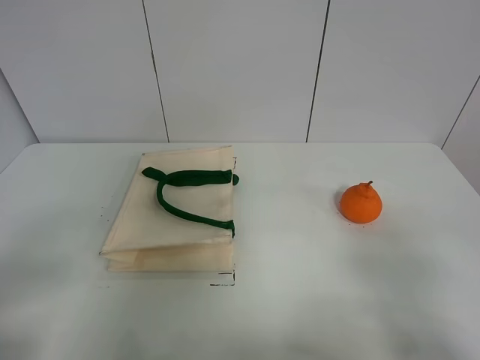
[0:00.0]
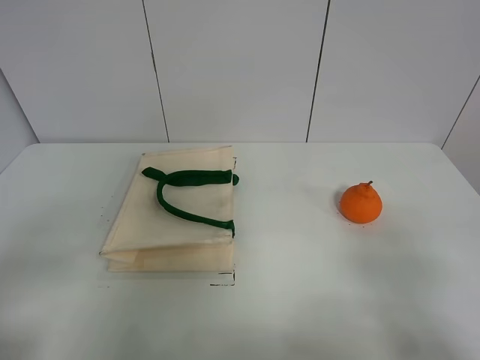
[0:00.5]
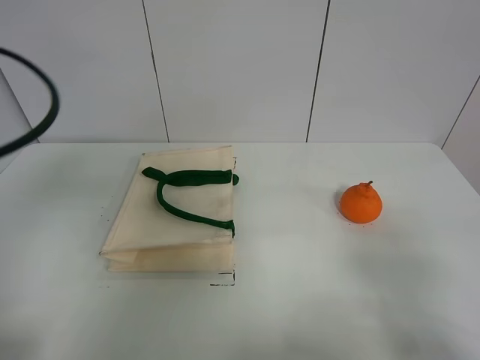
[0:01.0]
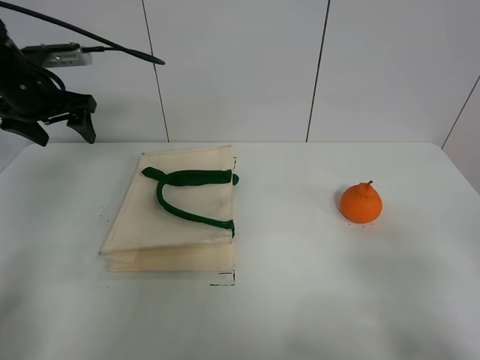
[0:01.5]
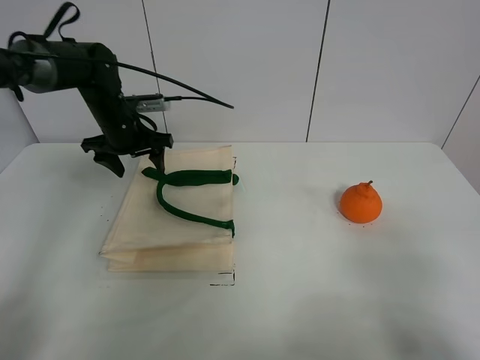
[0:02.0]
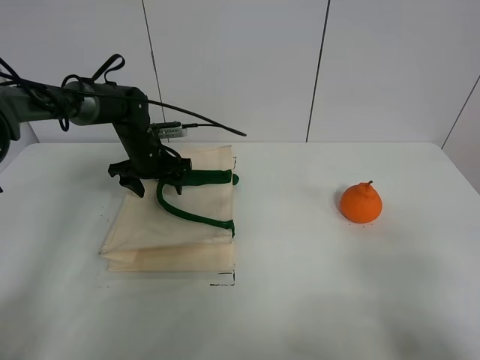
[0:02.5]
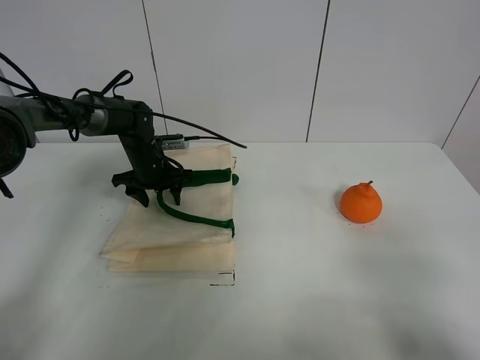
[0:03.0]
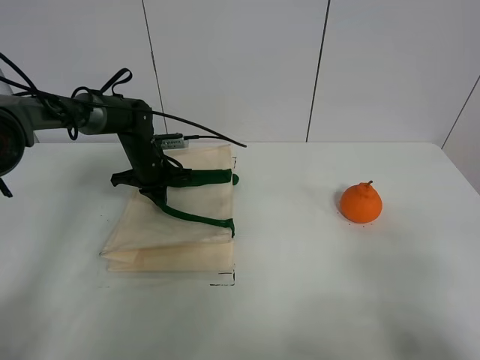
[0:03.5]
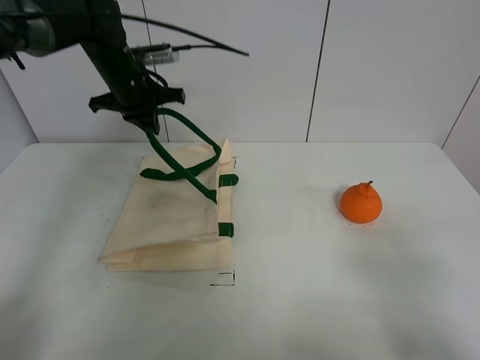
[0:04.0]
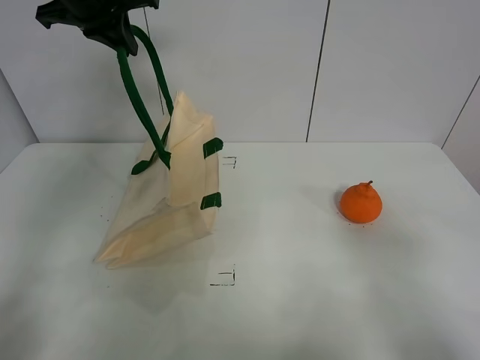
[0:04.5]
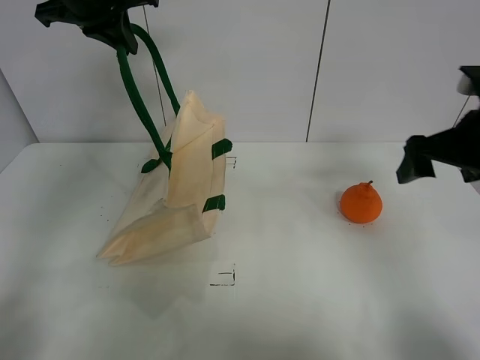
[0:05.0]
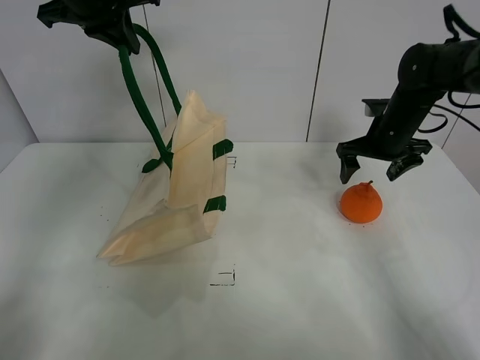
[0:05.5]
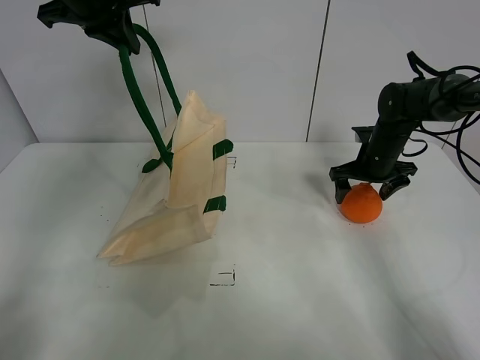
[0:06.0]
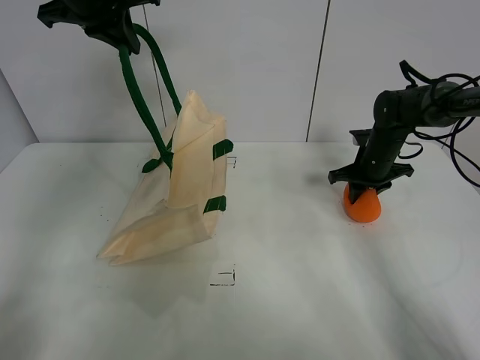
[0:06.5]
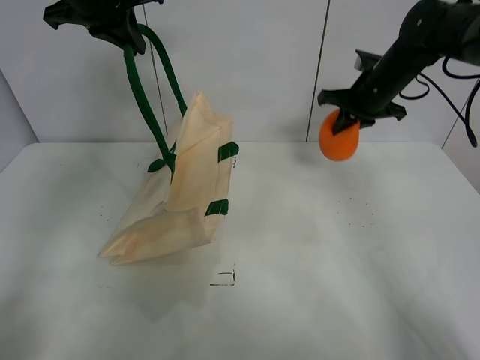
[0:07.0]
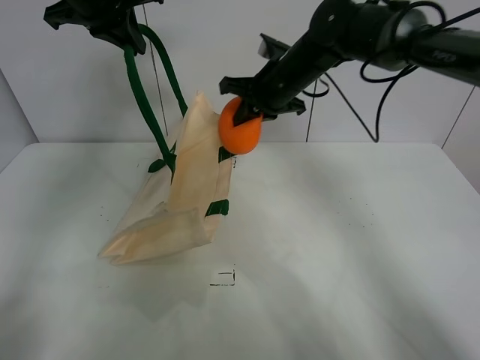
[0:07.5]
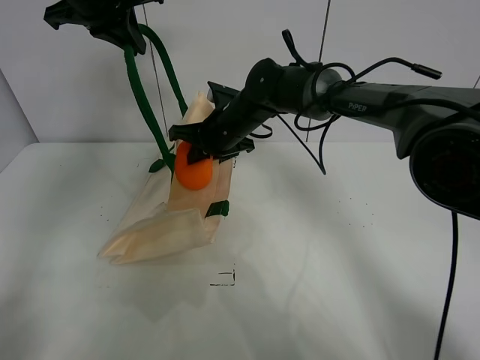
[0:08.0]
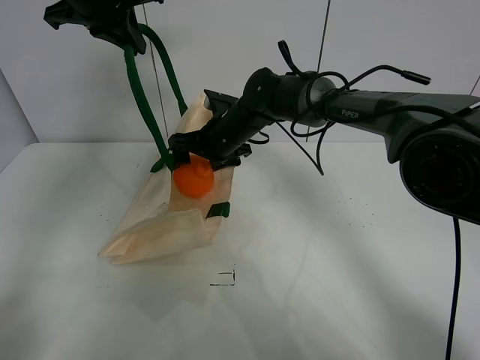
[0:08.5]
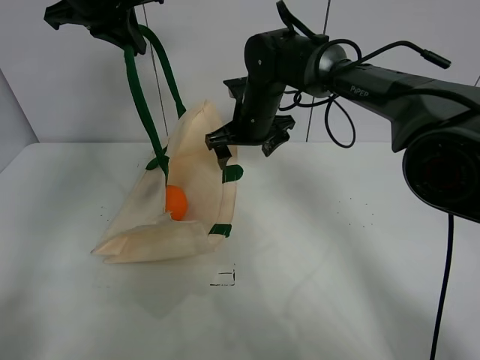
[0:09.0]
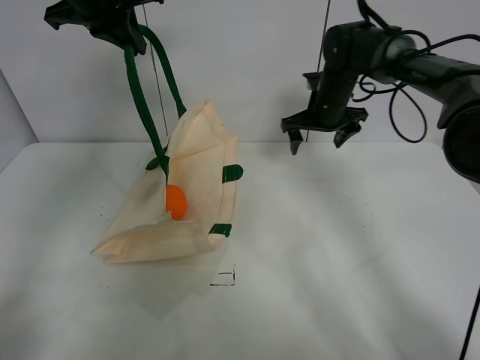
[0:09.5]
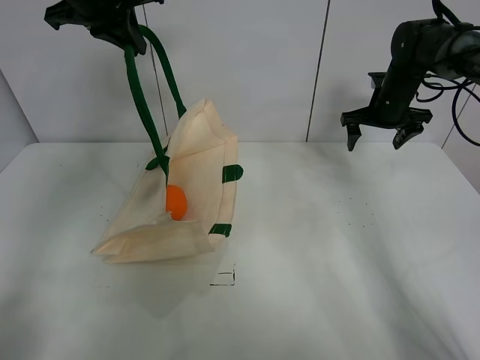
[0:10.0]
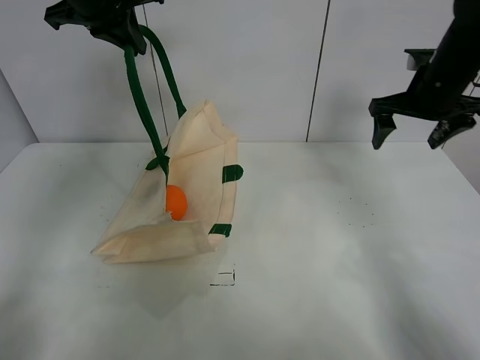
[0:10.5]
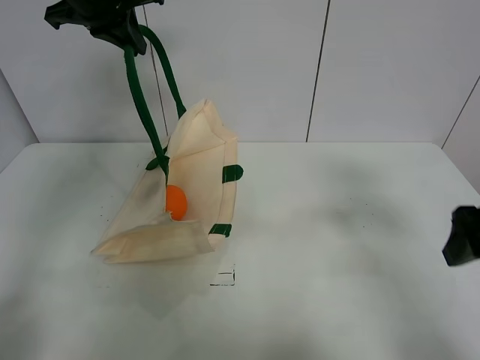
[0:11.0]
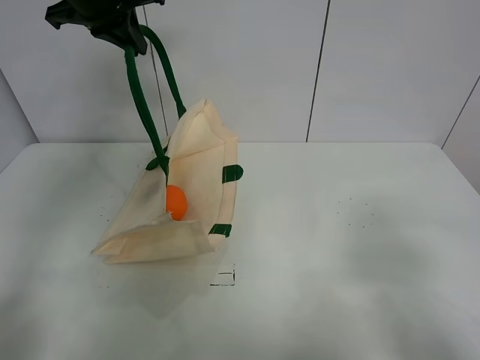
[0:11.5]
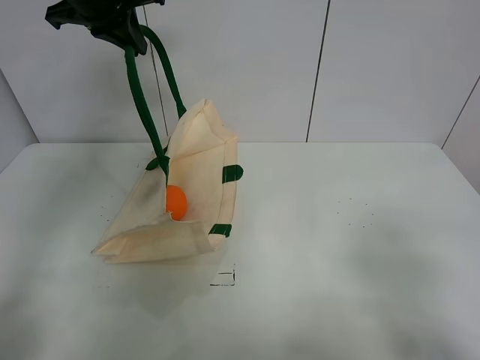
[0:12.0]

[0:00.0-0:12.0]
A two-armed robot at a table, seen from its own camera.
Task of the whole recording: open the white linen bag and put the orange in the bag.
Step, 0:00.0 to 0:04.0: Lift the handbag with left gripper.
Step, 0:04.5 to 0:06.5: Grasp the orange with right gripper.
Step, 0:07.0 to 0:08.5: Place the orange in the handbag with right gripper.
0:00.0 to 0:02.0: The left gripper shifts some 40 cm forward.
0:02.0 to 0:04.0: The left gripper heads upward, covering about 10 cm, and closes its fingers.
0:04.0 to 0:06.0: The right gripper goes approximately 40 cm forward. The left gripper moves upward and backward, approximately 15 cm.
0:06.0 to 0:08.0: The right gripper goes about 25 cm to the left, and closes.
0:08.0 to 0:10.0: The right gripper goes roughly 30 cm to the right, and opens up.
0:10.0 to 0:12.0: The right gripper moves backward, approximately 50 cm.

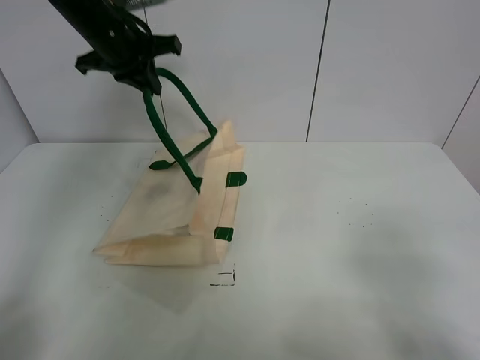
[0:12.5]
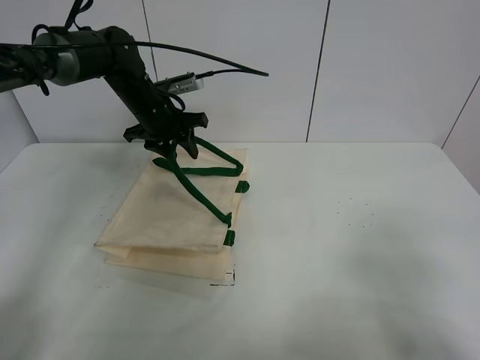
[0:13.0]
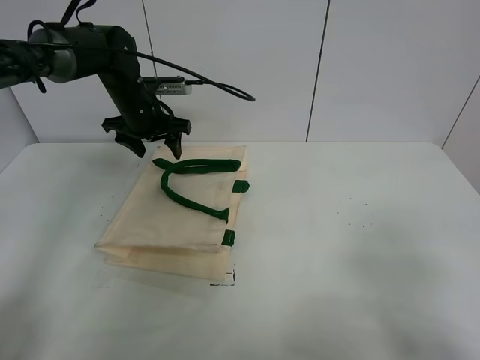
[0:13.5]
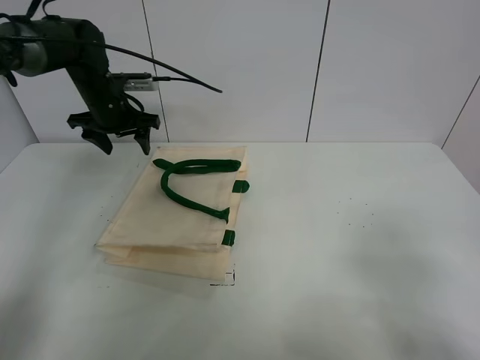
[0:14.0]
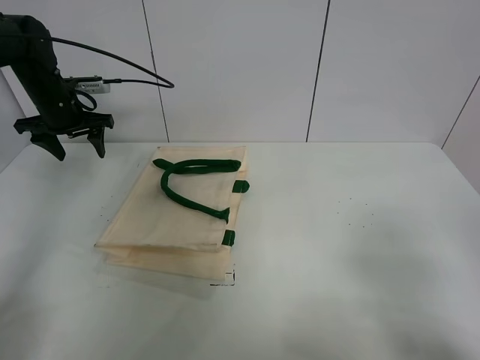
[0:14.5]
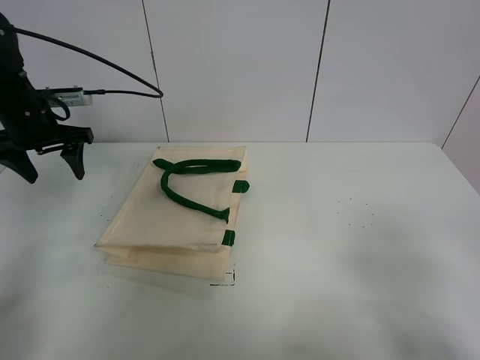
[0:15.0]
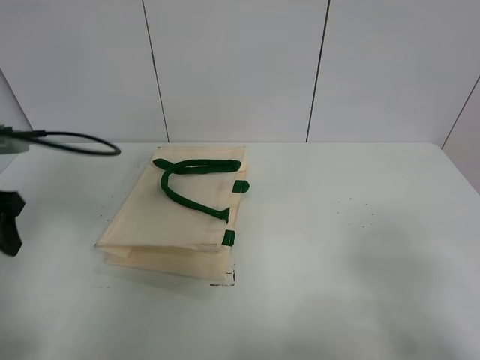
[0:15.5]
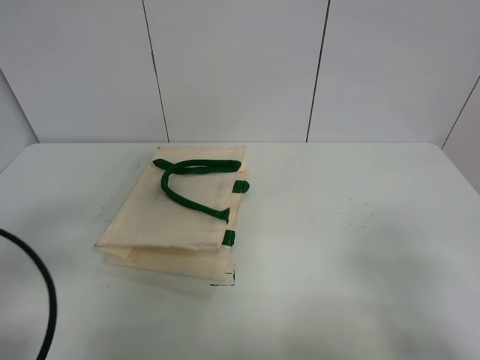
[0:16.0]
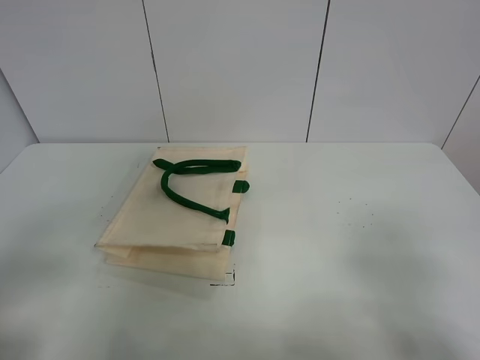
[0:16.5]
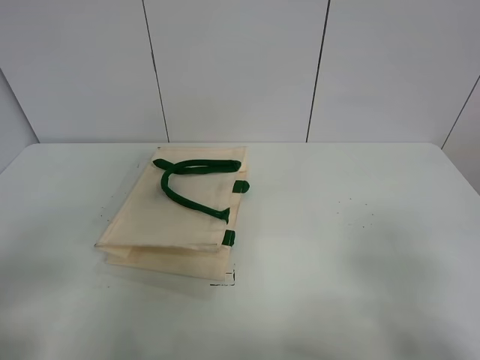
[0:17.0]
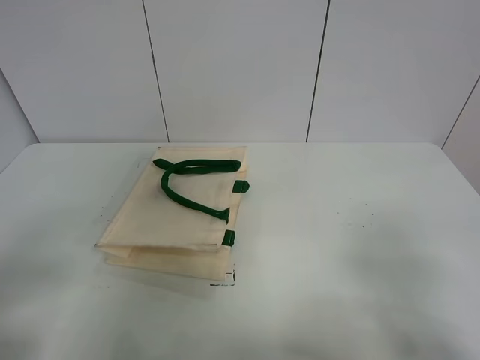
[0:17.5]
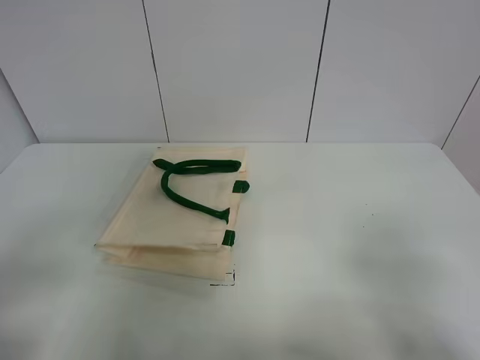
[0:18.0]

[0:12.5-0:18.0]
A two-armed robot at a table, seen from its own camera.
Task of the whole recording: open the white linen bag and put the orange in the bag.
0:12.5 to 0:14.5: The left gripper is displaced to the left and downward by approximately 15 cm, and opens its fingers.
0:14.5 to 0:16.0: The left gripper moves backward, some 40 cm.
0:16.0 to 0:18.0: The left gripper heads backward, covering roughly 5 cm.
